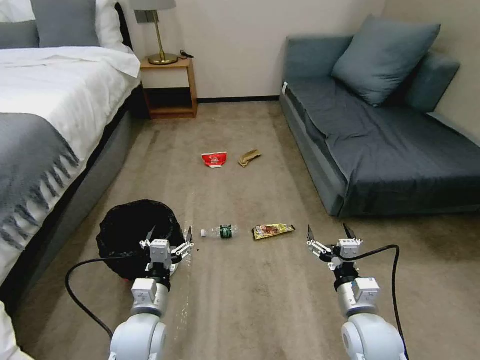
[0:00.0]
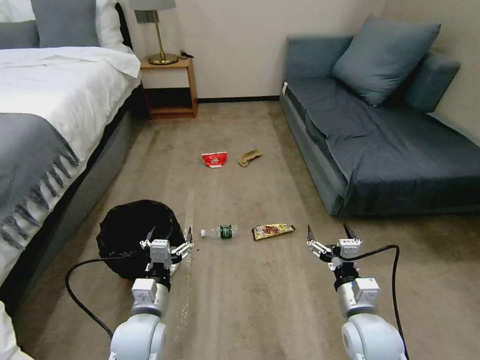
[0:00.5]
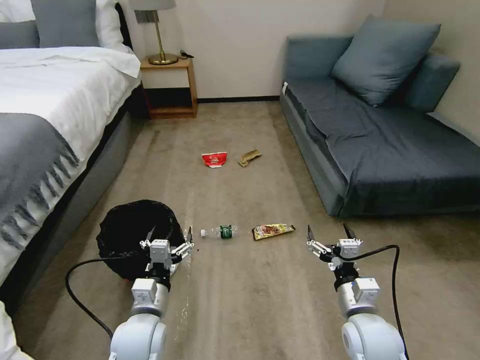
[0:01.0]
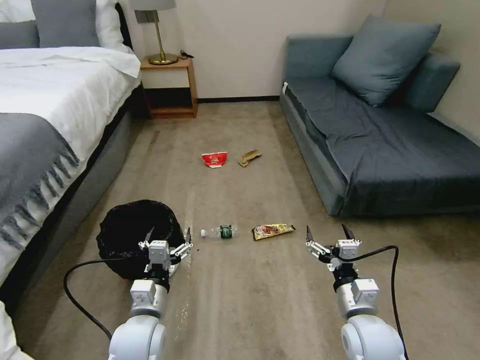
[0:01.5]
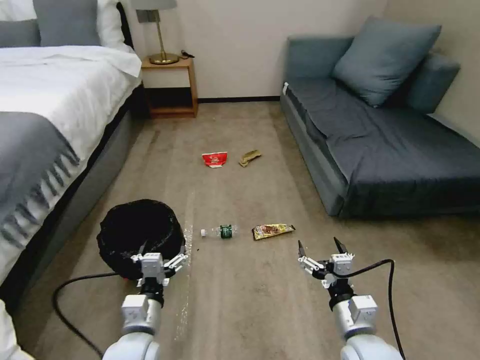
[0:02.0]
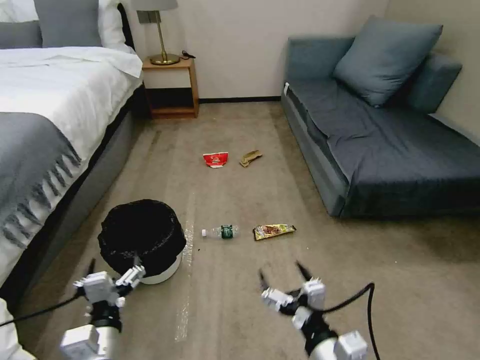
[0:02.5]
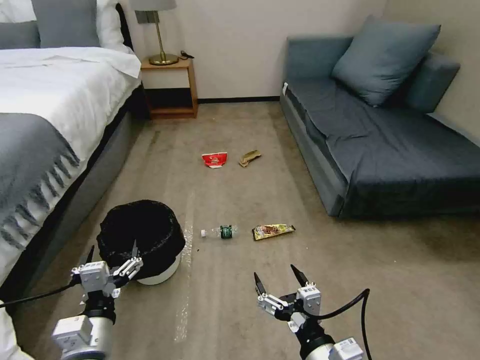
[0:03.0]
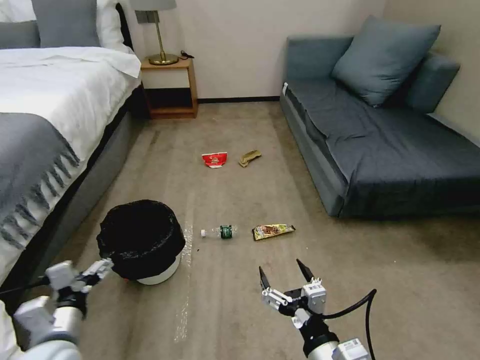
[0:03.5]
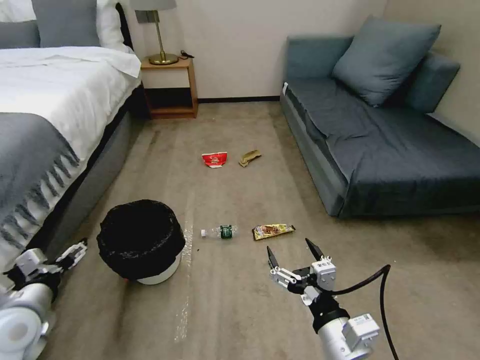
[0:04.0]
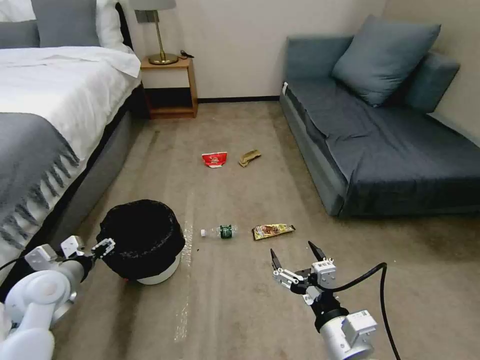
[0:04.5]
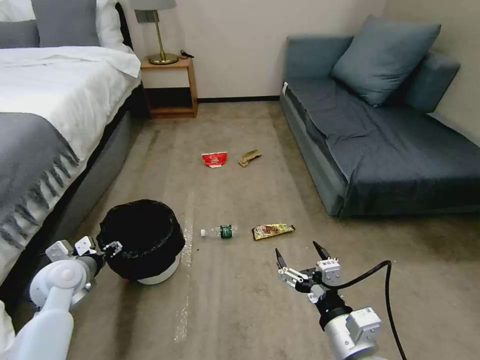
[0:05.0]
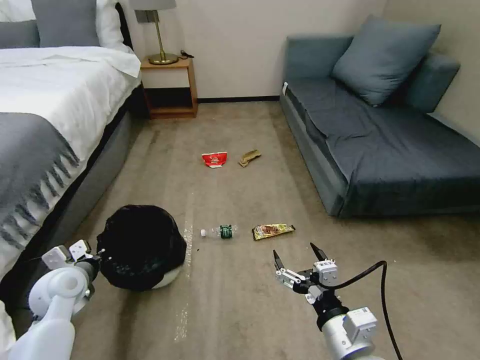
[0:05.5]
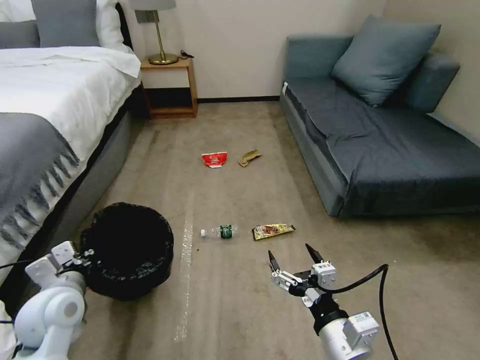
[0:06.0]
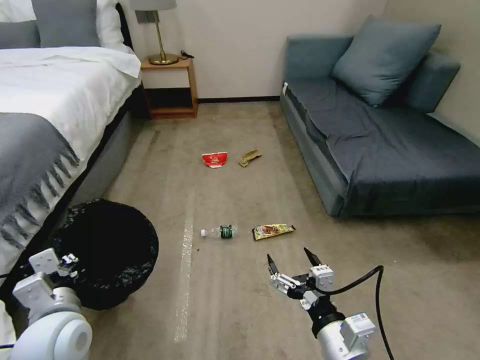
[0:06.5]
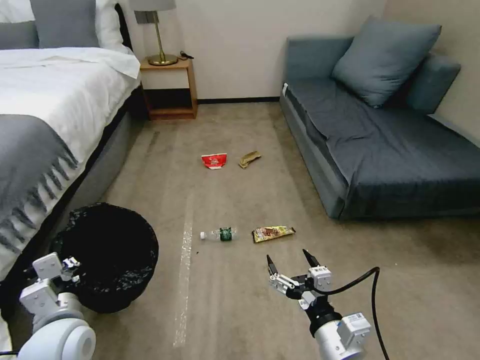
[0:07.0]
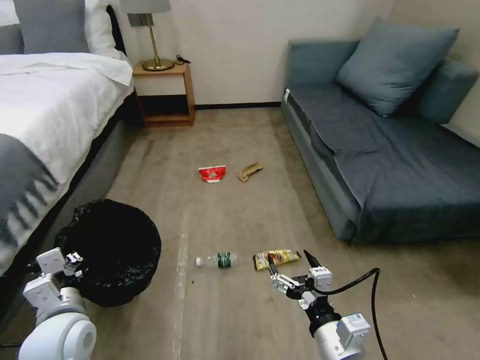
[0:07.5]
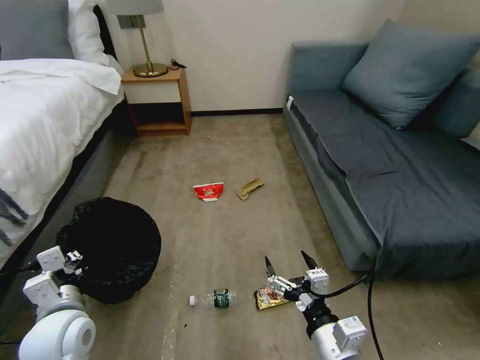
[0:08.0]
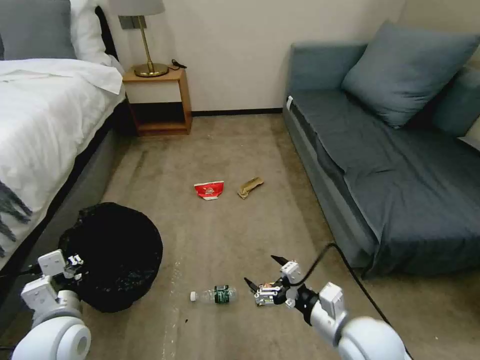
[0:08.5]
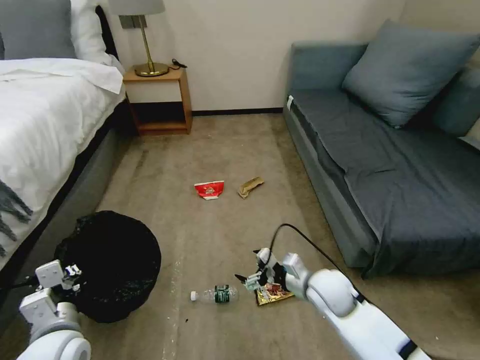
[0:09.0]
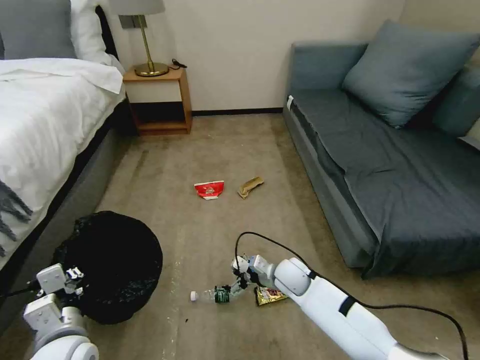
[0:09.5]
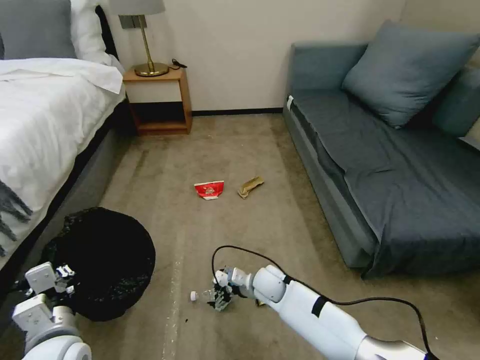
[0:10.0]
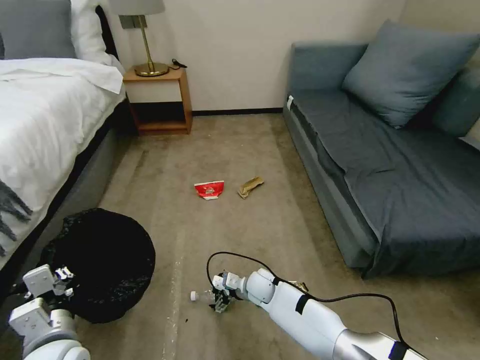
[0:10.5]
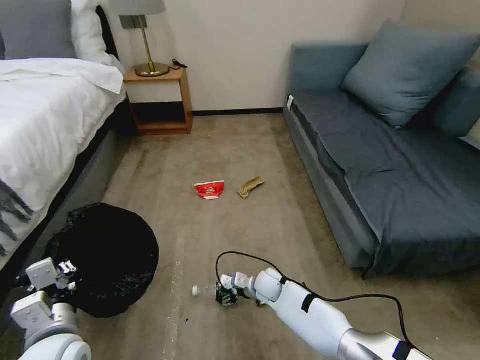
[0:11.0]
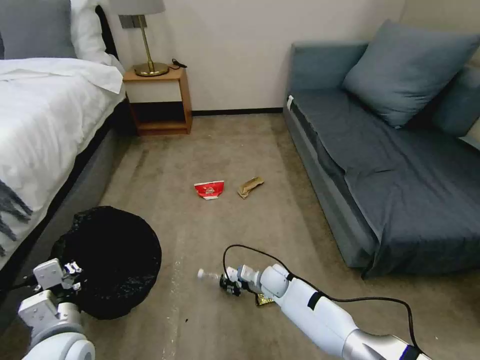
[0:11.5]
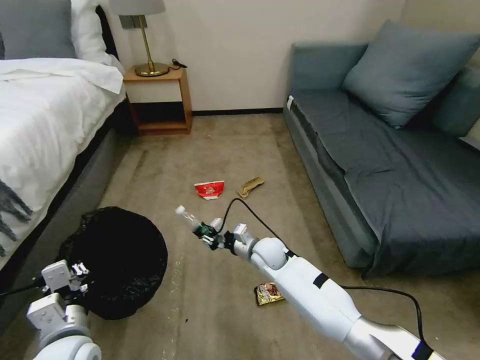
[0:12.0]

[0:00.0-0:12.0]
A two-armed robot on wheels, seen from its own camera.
Task of the whole recording: Pick up the trash bin, then pick up the garbage on the floor and place it into the trash bin.
0:02.0 to 0:04.0: The right gripper is displaced backward, upward and to the left by some 15 cm. The left gripper is displaced to the left and upward by about 20 cm.
0:04.0 to 0:06.0: The left gripper is displaced to the right by approximately 5 cm, and closes its fingers.
0:06.0 to 0:08.0: The left gripper ends up approximately 5 cm from where it was.
0:08.0 to 0:10.0: The right gripper travels forward, downward and to the left by some 30 cm.
0:10.0 to 0:12.0: The right gripper is displaced upward and forward by about 10 cm, and closes up.

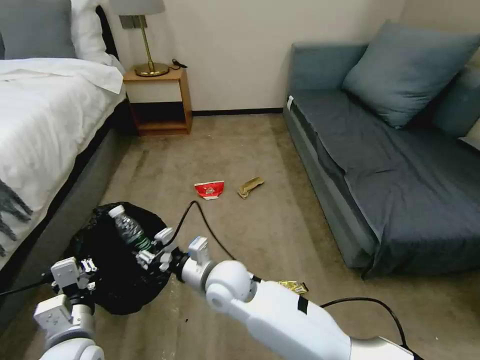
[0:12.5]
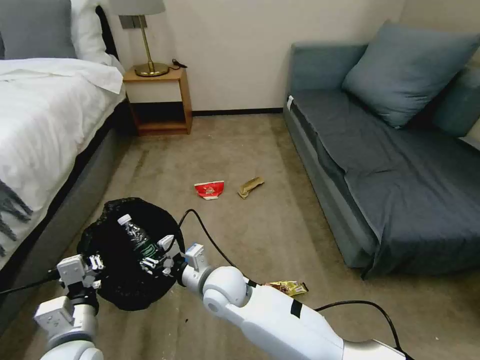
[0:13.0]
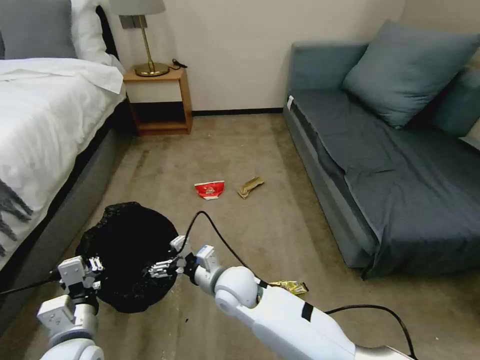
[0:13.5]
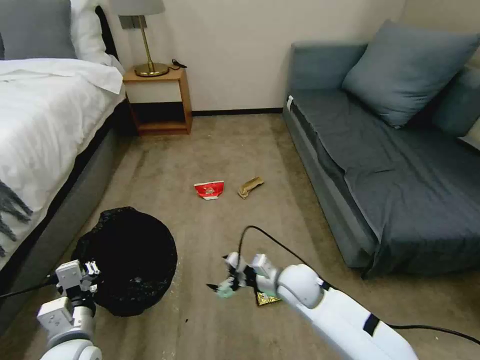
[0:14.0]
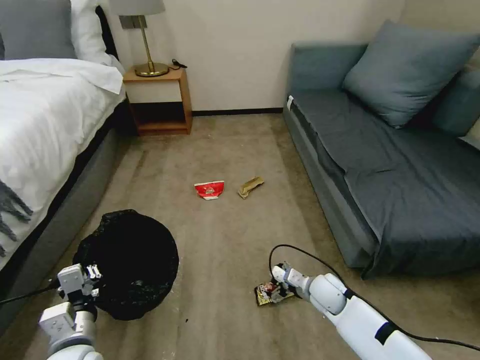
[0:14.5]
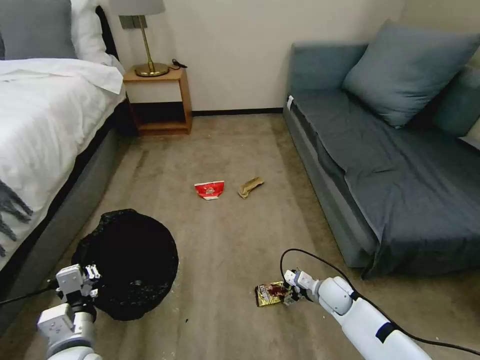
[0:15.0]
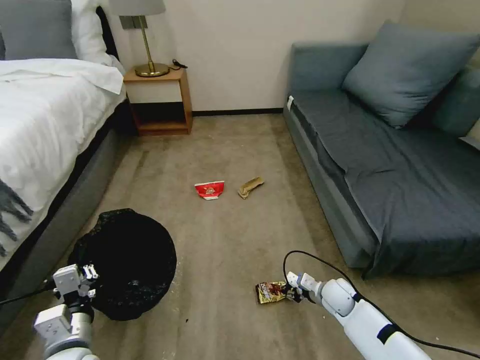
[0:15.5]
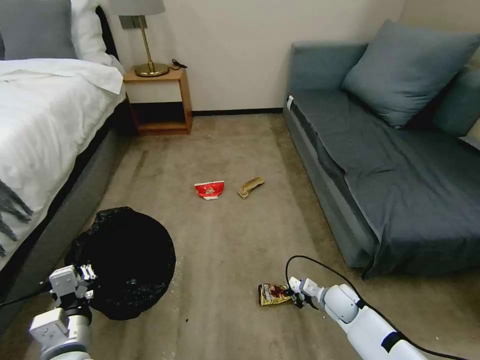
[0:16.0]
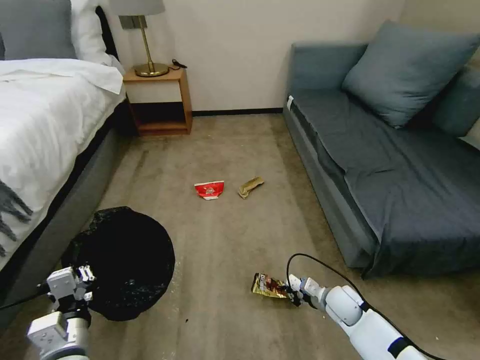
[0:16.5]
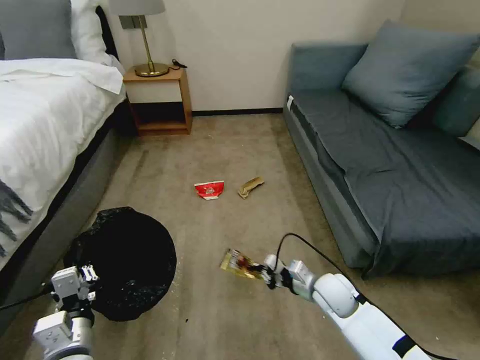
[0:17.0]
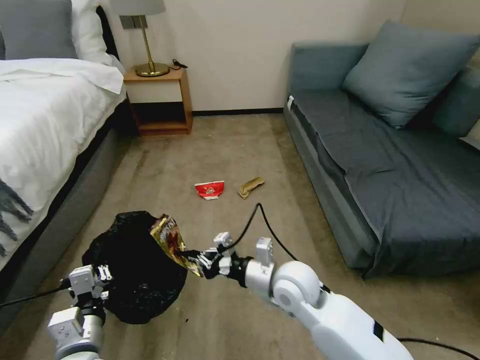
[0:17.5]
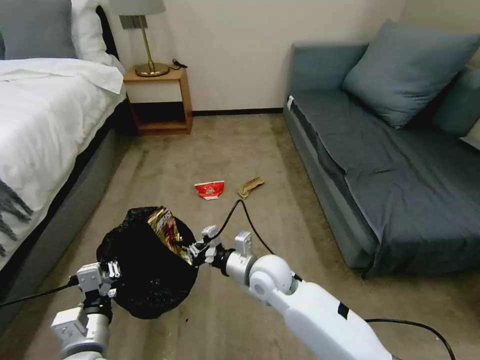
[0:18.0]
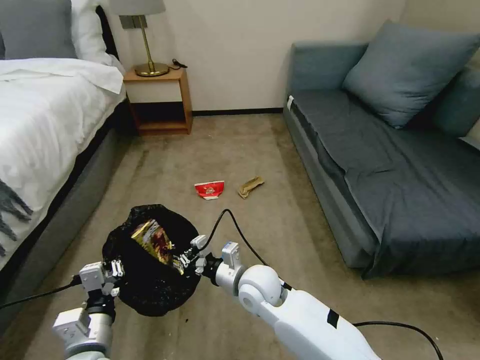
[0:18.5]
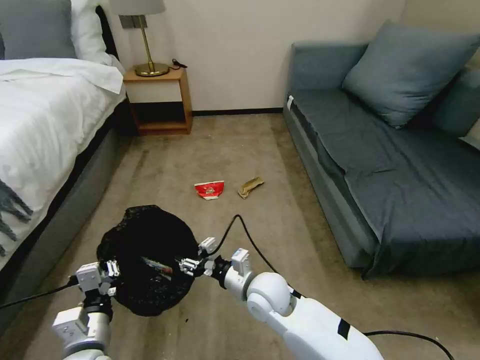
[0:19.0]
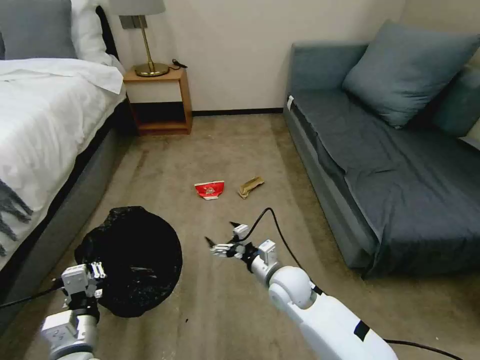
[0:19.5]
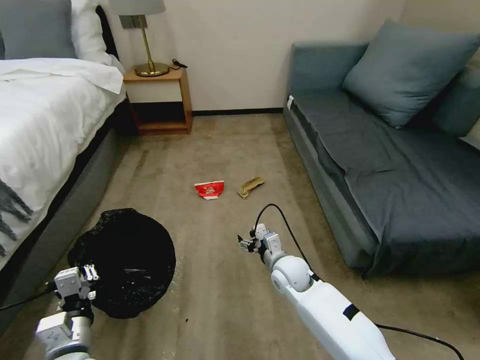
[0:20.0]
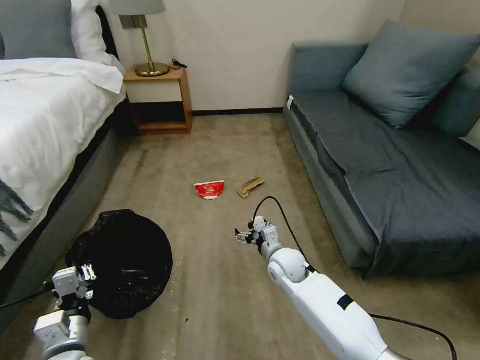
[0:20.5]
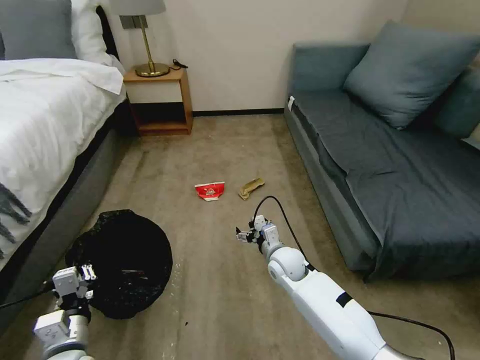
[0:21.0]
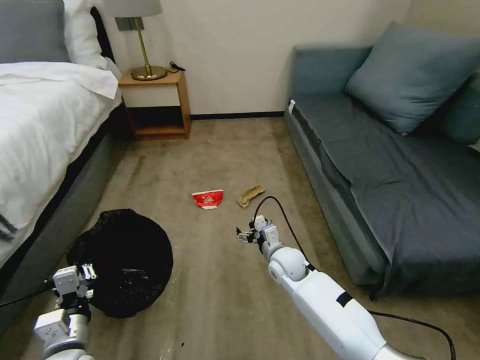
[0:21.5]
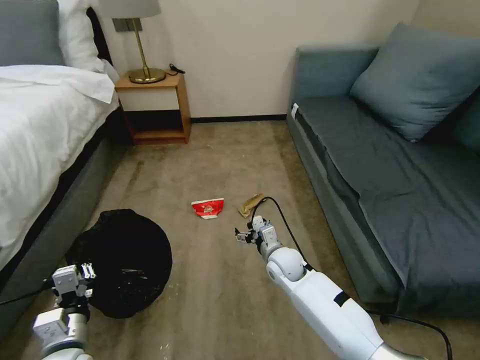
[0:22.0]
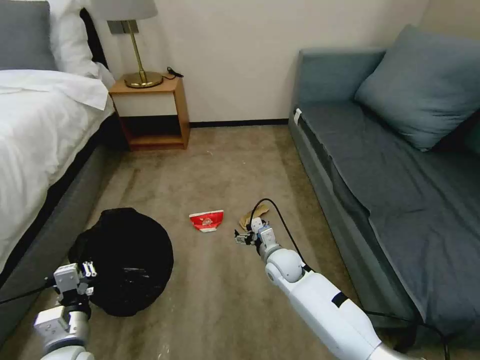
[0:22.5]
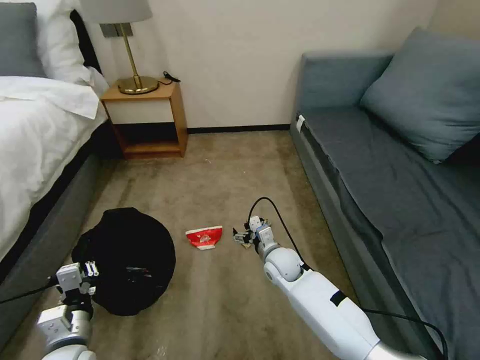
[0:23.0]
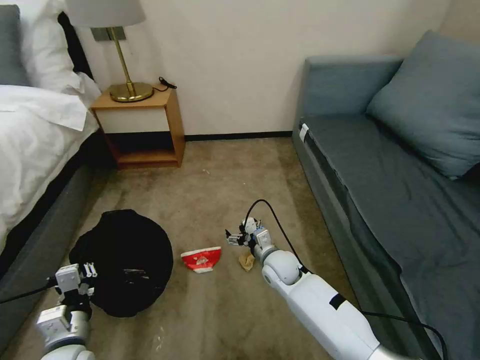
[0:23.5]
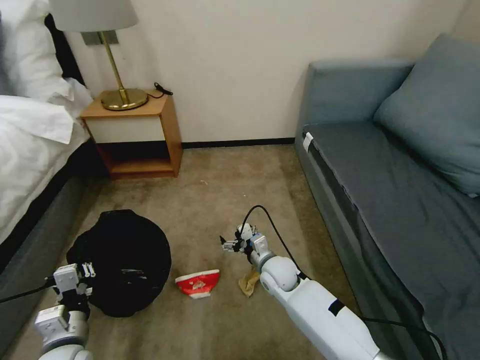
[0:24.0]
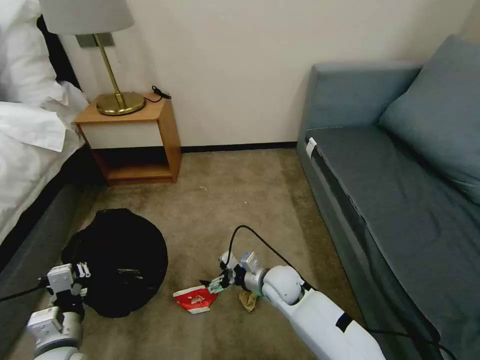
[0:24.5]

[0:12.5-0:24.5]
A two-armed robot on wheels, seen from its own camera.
Task of the whole recording: Pick up the trash bin, then pick up the garbage on the floor and place it into the trash bin.
0:12.5 to 0:14.5: The right gripper goes about 30 cm to the right and downward, and opens up.
0:14.5 to 0:16.5: The right gripper shifts some 5 cm to the right, and closes its fingers.
0:16.5 to 0:18.5: The right gripper goes roughly 30 cm to the left and upward.
0:18.5 to 0:20.5: The left gripper changes place by some 5 cm; the right gripper moves to the right, forward and downward, some 15 cm, and opens.
0:22.5 to 0:24.5: The right gripper heads backward, covering some 5 cm.

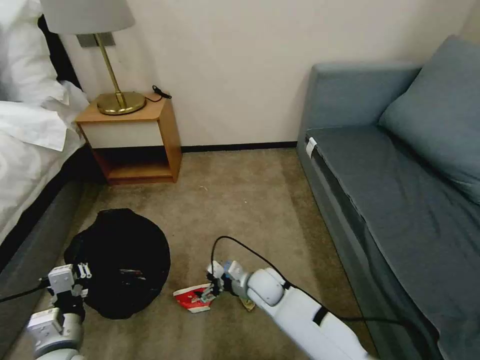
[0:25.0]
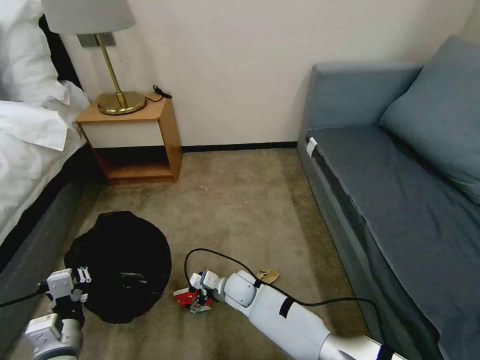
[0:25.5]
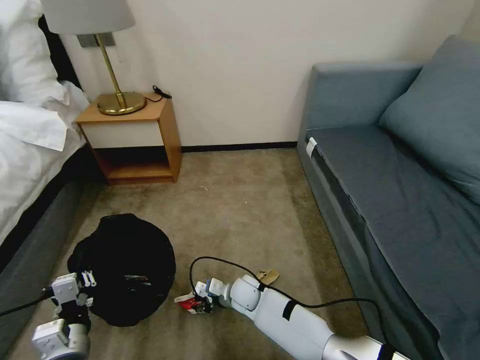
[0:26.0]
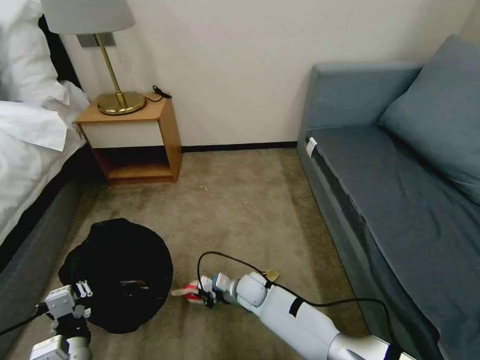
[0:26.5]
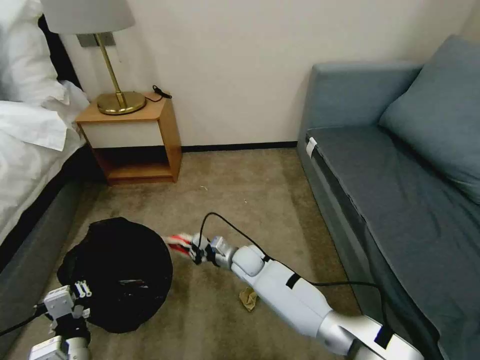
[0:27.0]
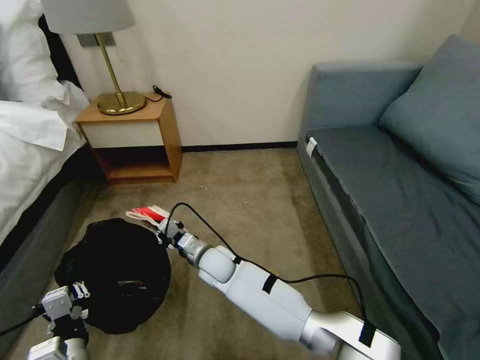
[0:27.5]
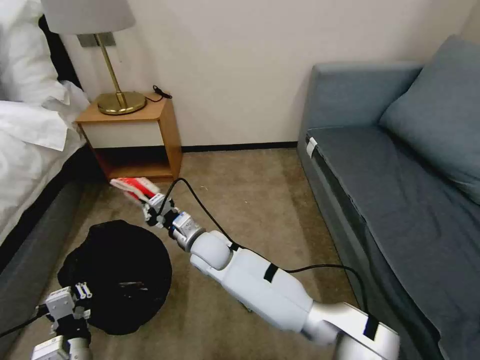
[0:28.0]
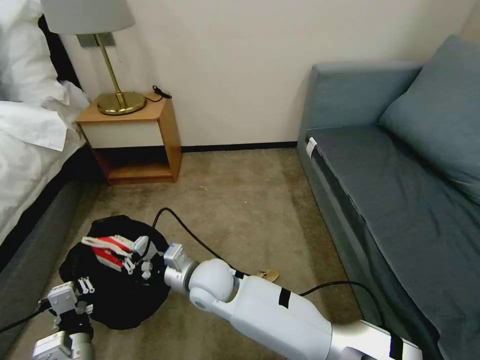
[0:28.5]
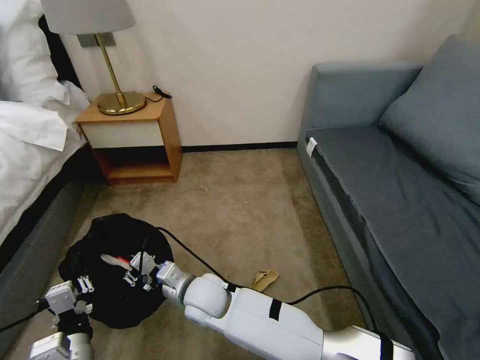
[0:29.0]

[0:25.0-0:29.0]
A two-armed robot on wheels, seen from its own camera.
Task of the whole recording: Pick up the trash bin, then pick up the garbage on the floor and place it into the trash bin.
0:25.0 to 0:27.0: The left gripper ends up some 5 cm from where it was. Meanwhile the right gripper shifts roughly 5 cm forward, and closes its fingers.
0:27.0 to 0:29.0: The right gripper heads backward, to the left and upward, covering approximately 20 cm.
